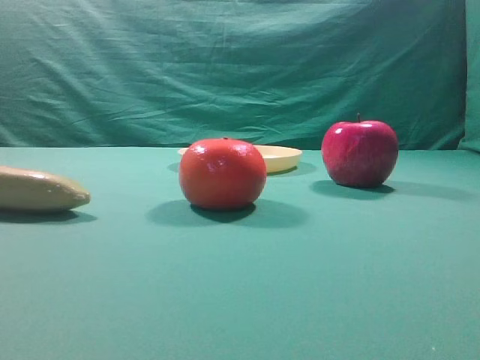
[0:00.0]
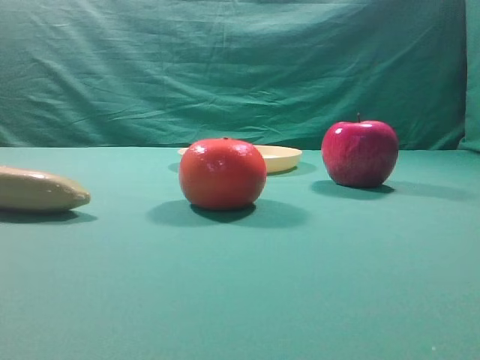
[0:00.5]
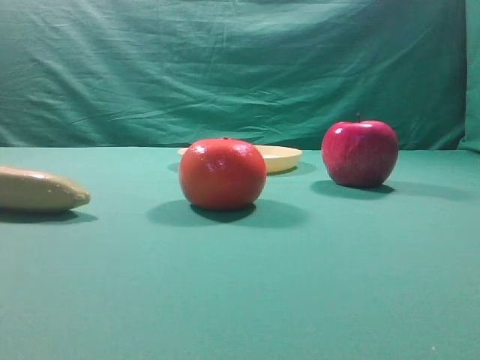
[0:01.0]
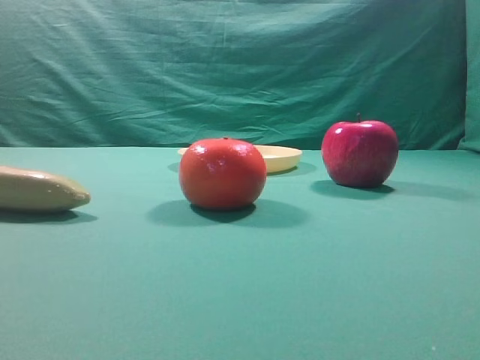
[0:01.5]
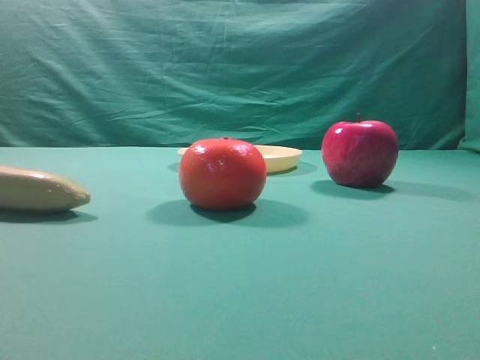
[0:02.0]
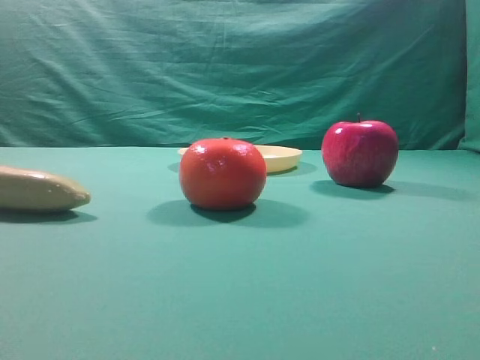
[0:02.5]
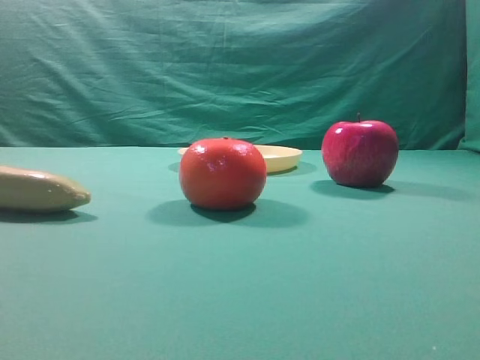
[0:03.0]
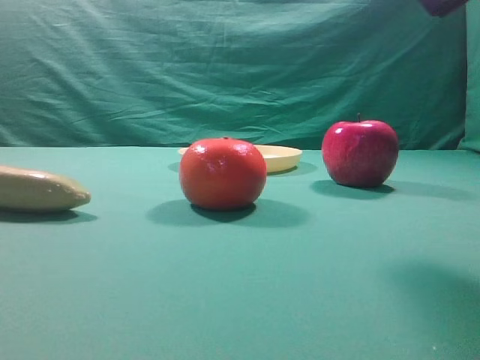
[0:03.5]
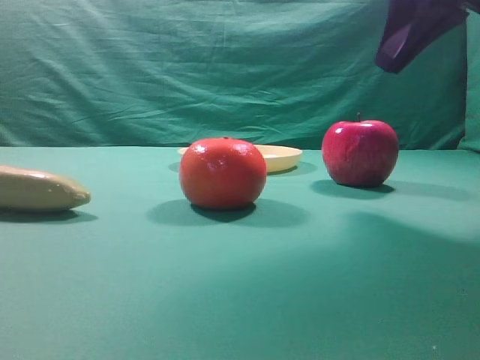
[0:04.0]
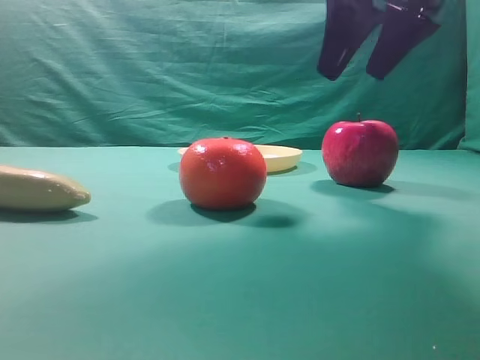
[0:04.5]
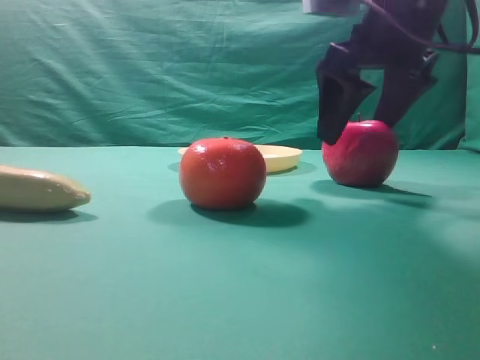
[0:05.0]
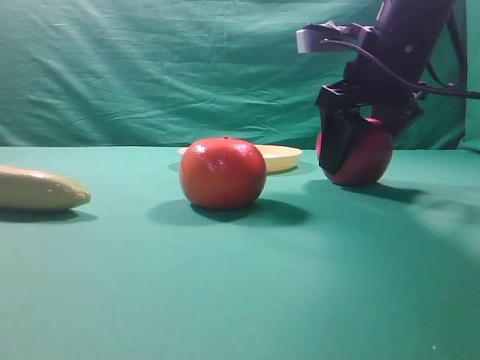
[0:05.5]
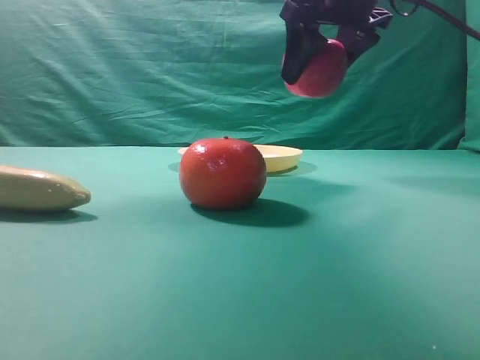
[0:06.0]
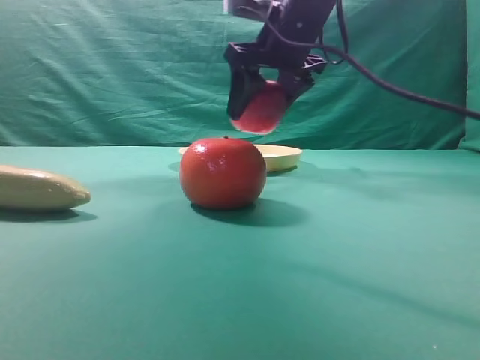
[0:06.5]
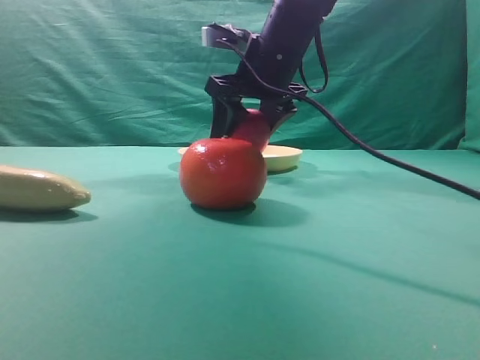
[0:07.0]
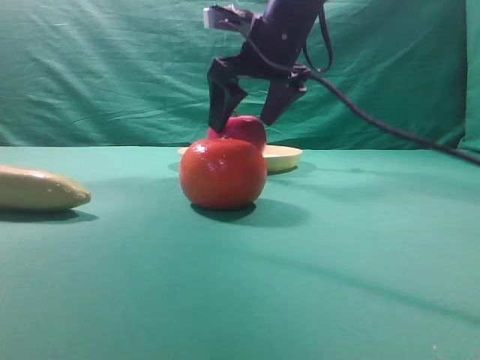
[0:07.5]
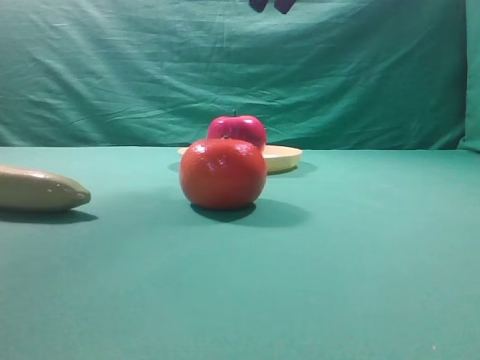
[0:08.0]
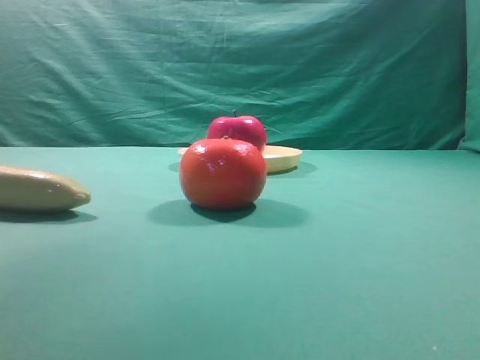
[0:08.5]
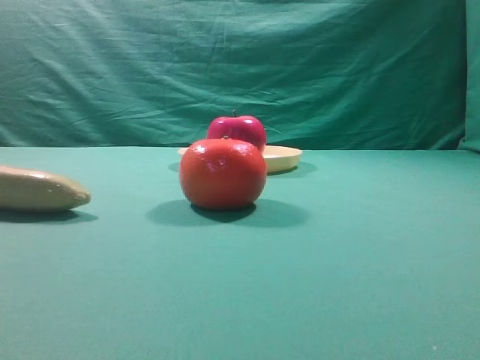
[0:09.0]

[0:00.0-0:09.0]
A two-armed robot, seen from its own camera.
Task of the whole recording: grasp the apple and place it into the yellow plate.
Step, 0:00.0 to 0:05.5: Grasp the fruit that can keep the doctor away.
Step, 0:06.0 to 0:07.5: Place the picked object into the yellow plate.
